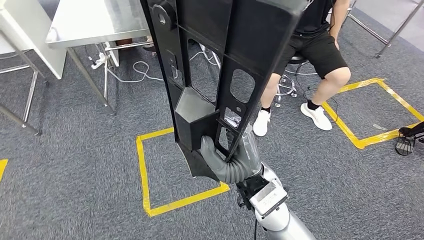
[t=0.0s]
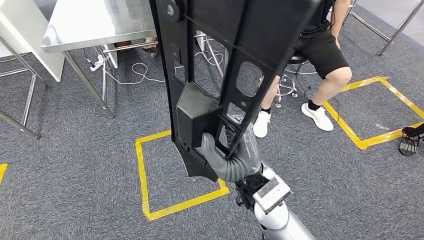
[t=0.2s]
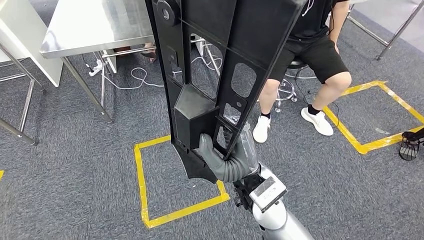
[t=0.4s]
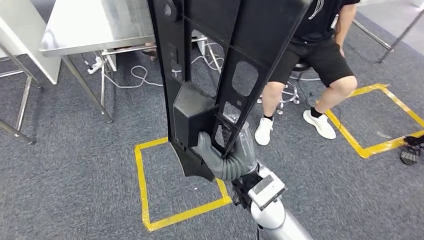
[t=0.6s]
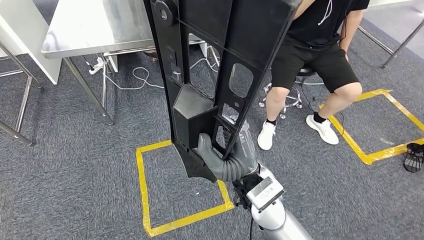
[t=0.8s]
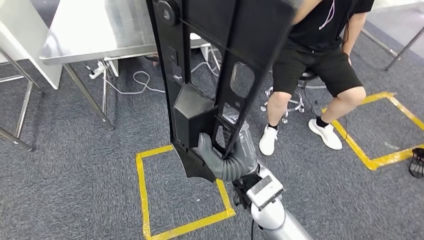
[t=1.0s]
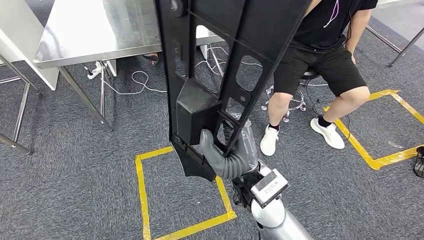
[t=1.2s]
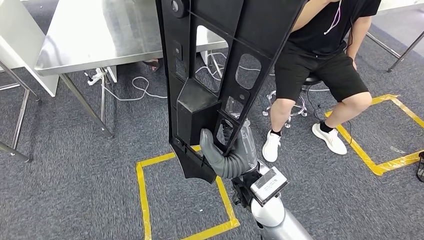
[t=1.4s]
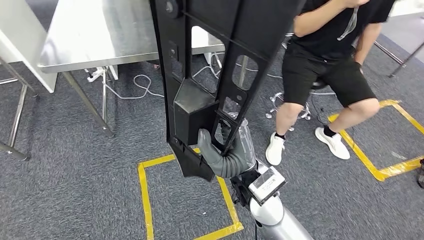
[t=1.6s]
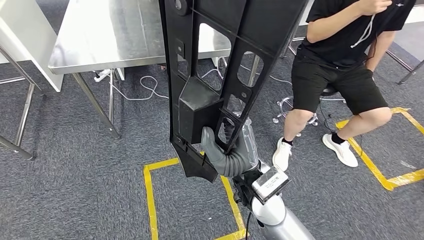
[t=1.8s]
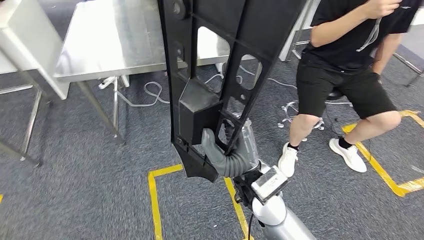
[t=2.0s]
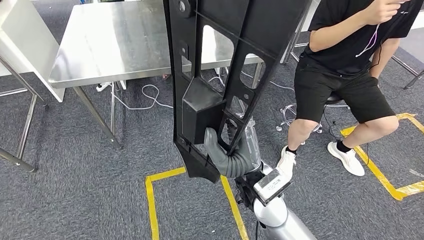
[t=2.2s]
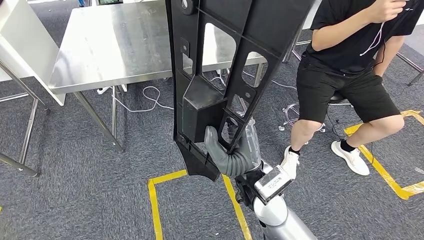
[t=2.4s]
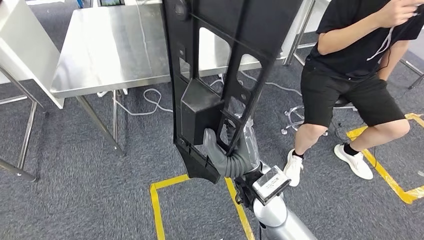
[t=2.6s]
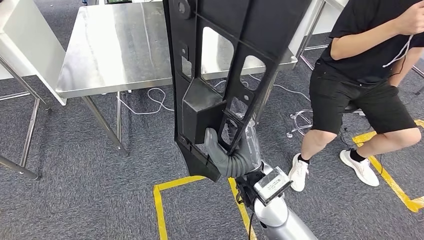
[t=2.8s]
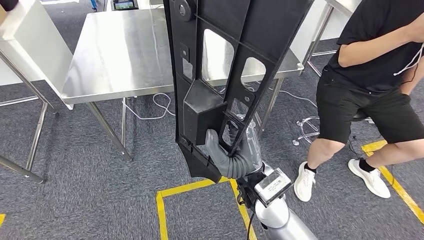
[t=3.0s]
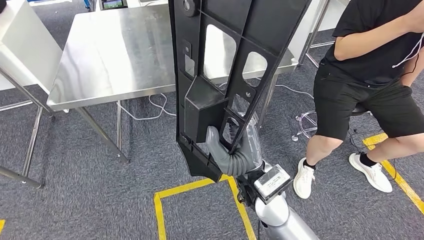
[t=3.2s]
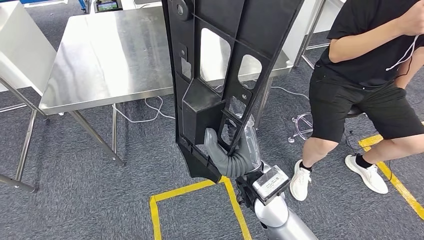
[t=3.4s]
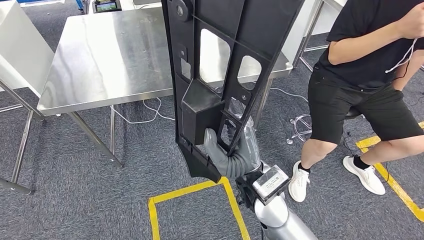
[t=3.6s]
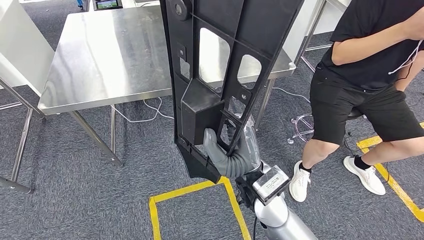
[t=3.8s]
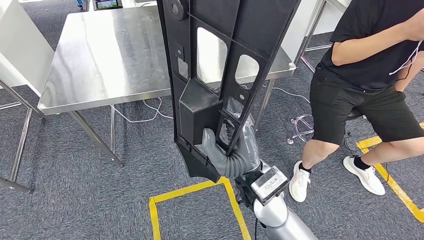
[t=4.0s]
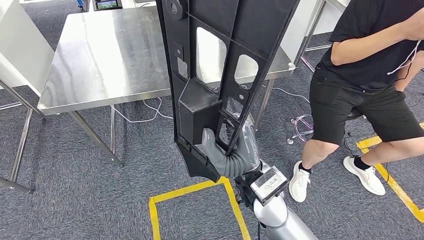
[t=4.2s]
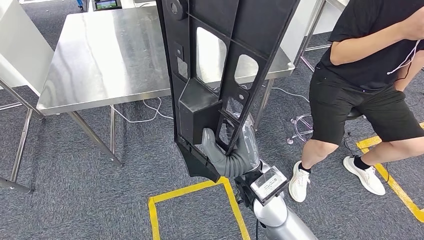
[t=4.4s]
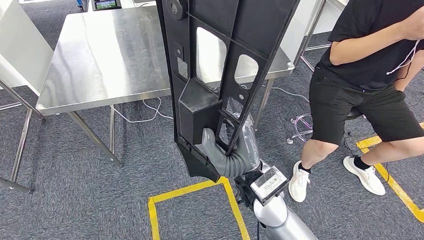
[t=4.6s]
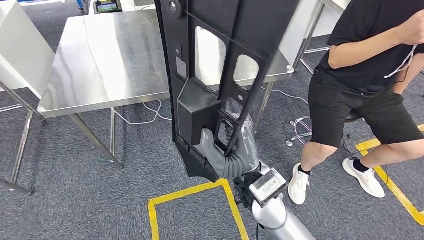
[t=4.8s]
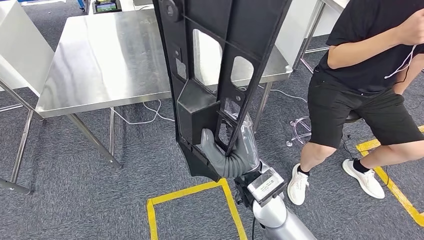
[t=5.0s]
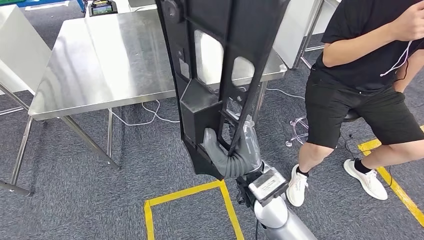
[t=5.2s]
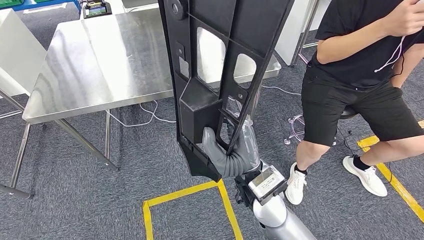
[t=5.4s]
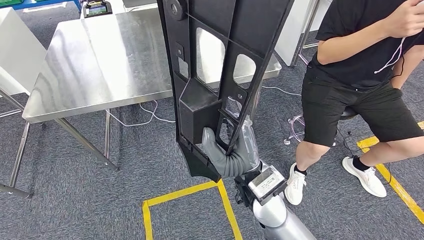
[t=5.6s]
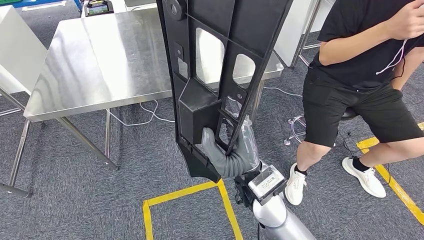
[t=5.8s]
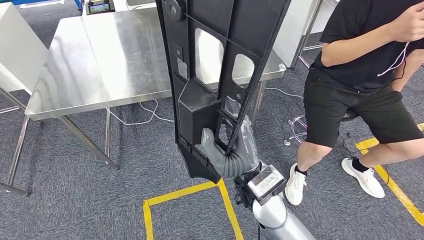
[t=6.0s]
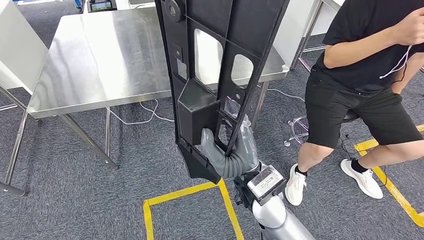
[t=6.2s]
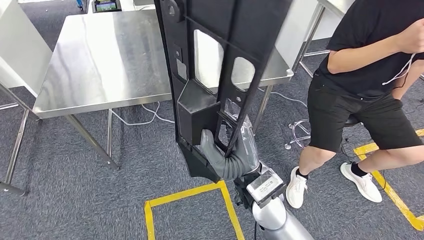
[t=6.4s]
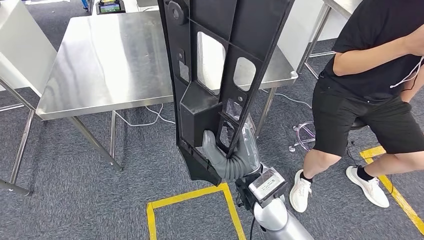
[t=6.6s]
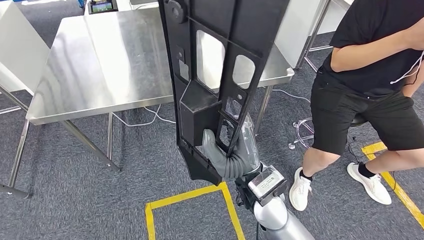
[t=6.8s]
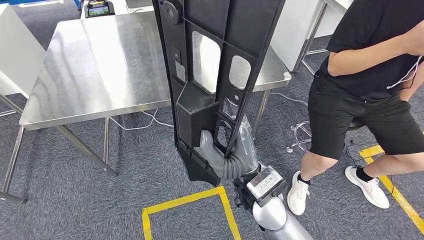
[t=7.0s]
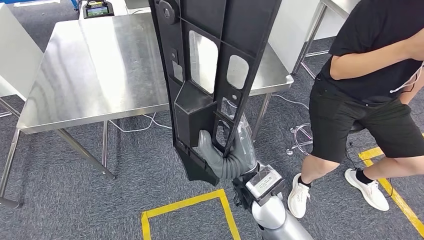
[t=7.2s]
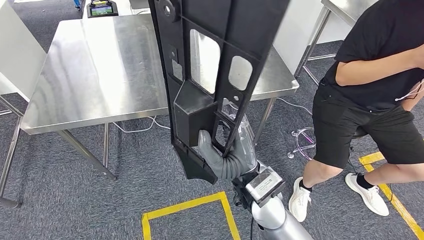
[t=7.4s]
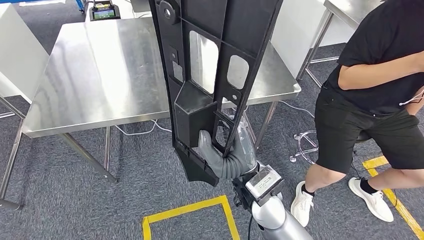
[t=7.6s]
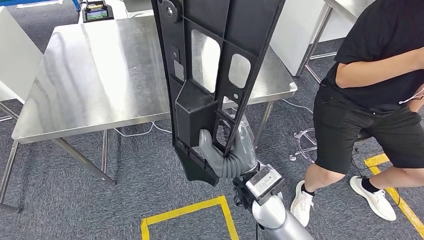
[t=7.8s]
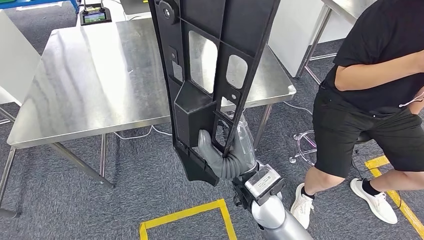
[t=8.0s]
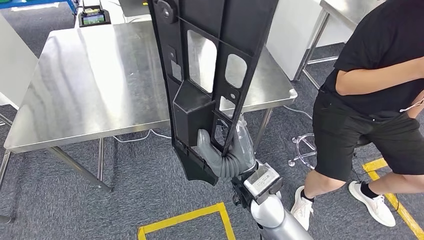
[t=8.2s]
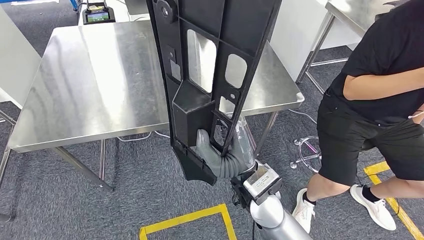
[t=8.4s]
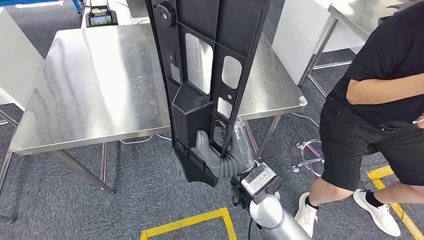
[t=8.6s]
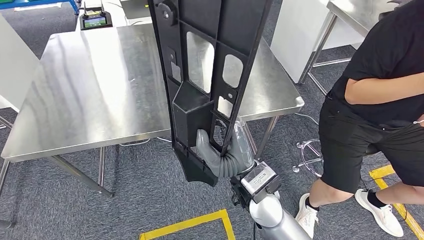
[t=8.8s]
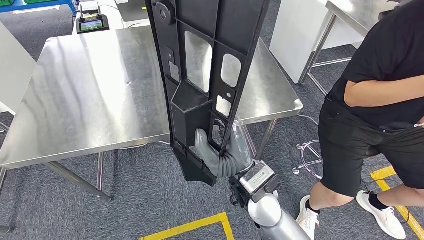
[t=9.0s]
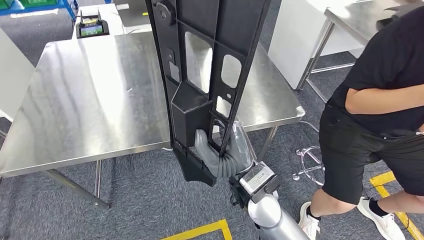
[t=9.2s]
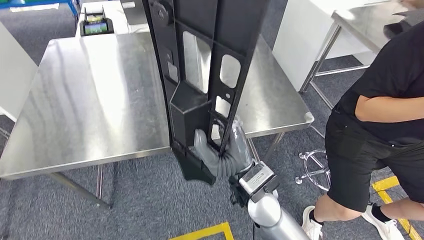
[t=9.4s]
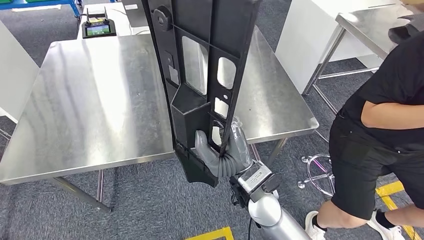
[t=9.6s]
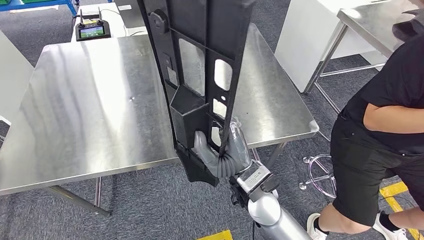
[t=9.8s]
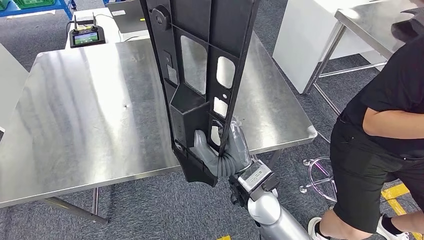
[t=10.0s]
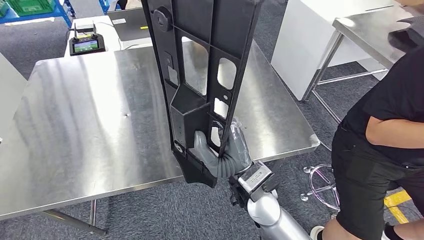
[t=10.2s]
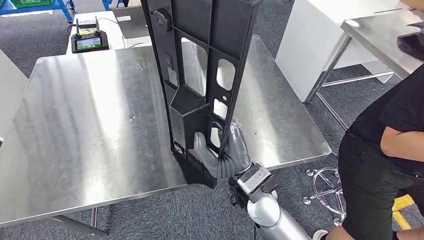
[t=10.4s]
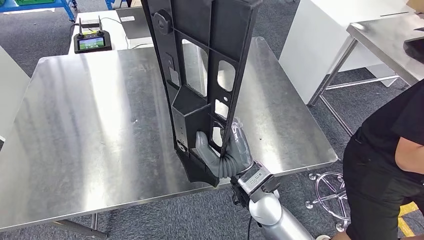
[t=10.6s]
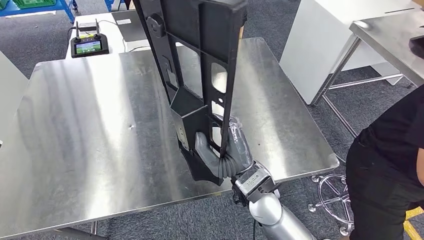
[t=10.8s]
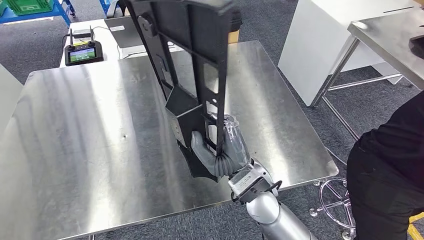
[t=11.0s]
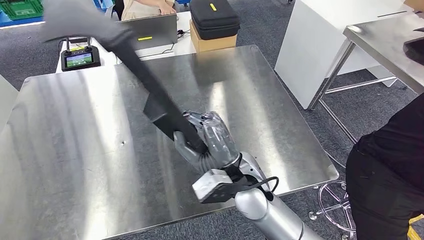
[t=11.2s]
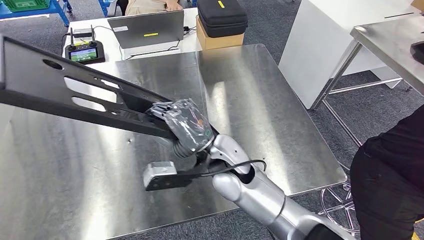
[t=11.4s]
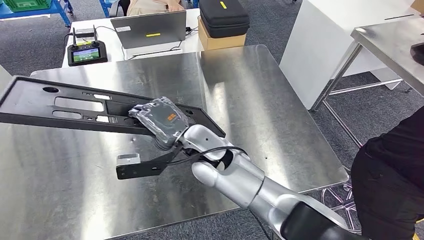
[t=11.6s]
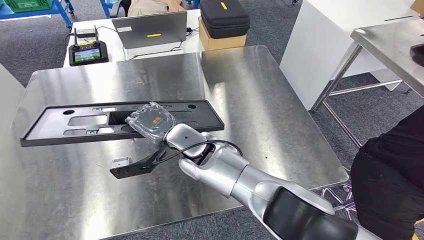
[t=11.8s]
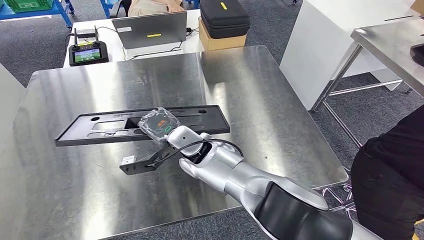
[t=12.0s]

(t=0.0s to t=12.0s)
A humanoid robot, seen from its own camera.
Step, t=0.0s - t=5.6s: Move the large material to the workbench.
t=4.4s - t=6.0s: Neither hand changes place.

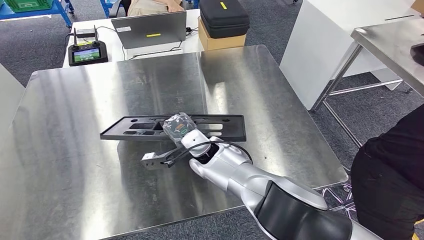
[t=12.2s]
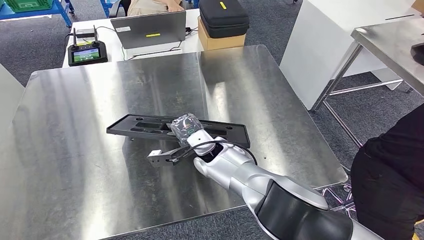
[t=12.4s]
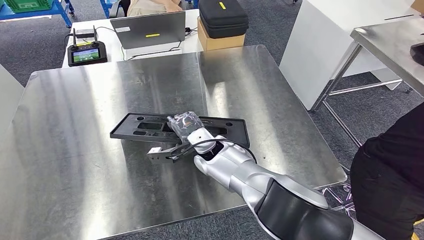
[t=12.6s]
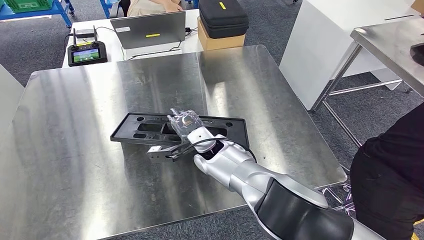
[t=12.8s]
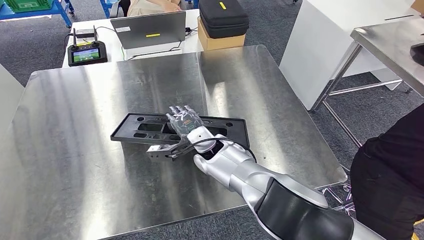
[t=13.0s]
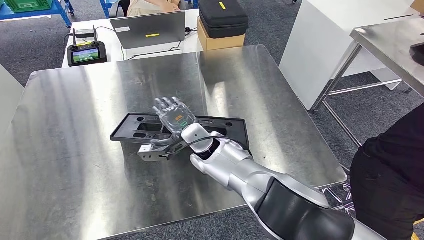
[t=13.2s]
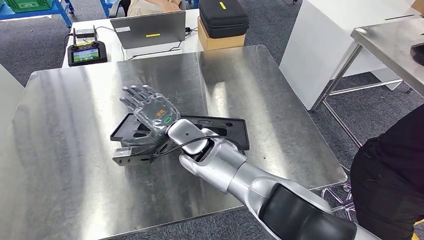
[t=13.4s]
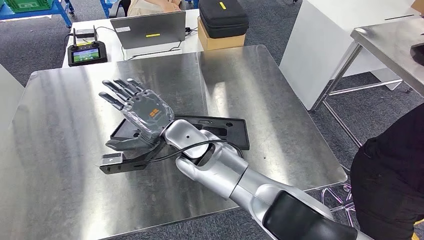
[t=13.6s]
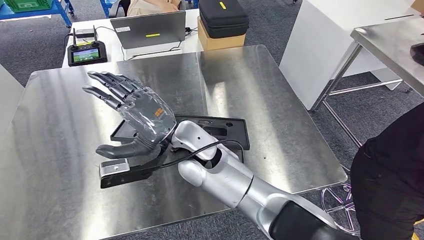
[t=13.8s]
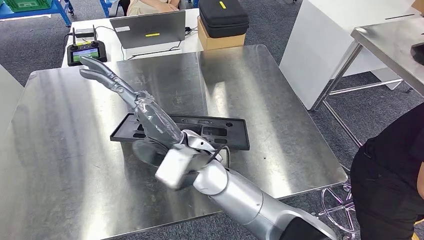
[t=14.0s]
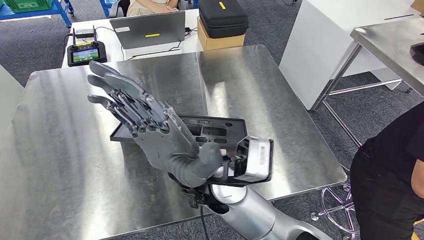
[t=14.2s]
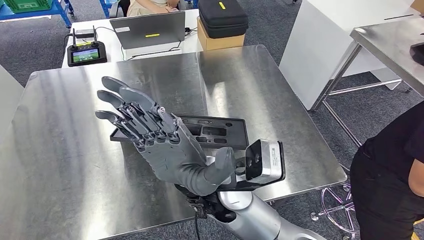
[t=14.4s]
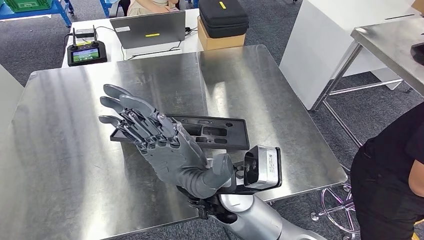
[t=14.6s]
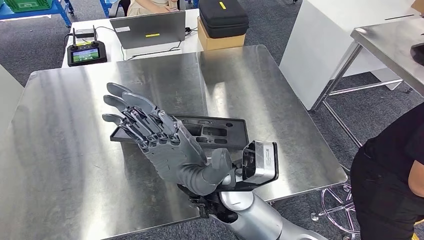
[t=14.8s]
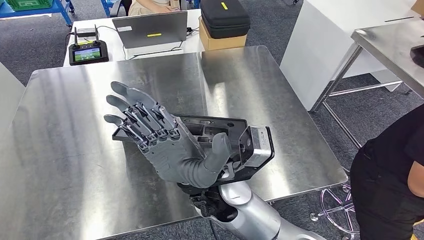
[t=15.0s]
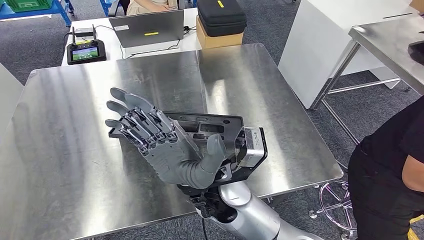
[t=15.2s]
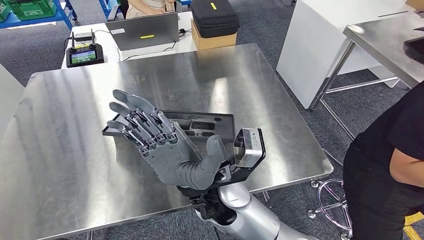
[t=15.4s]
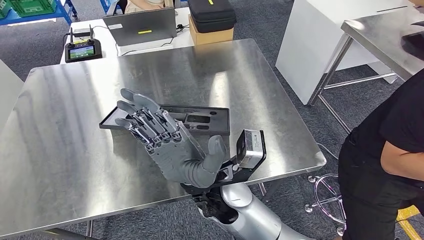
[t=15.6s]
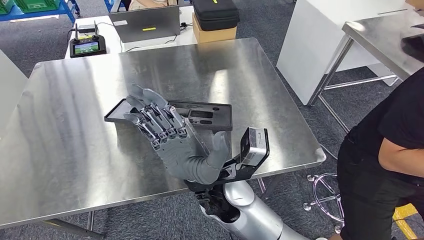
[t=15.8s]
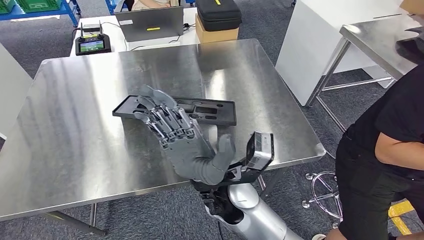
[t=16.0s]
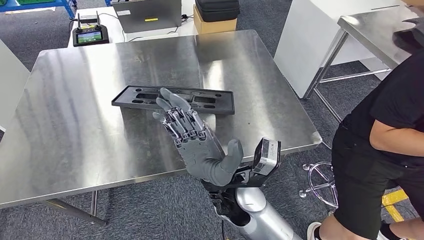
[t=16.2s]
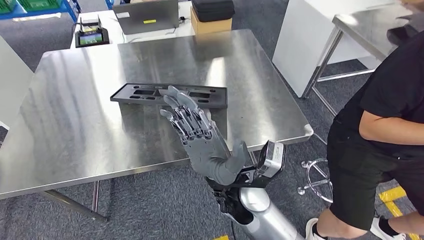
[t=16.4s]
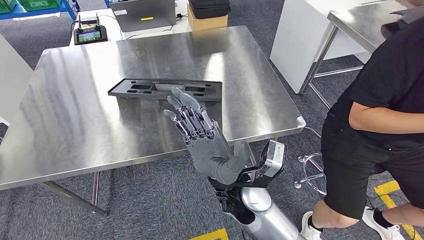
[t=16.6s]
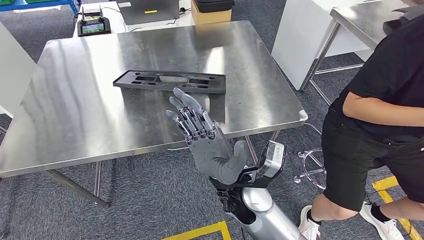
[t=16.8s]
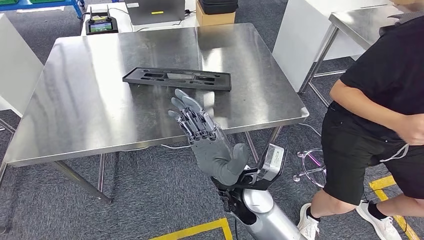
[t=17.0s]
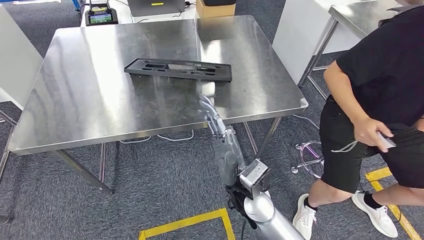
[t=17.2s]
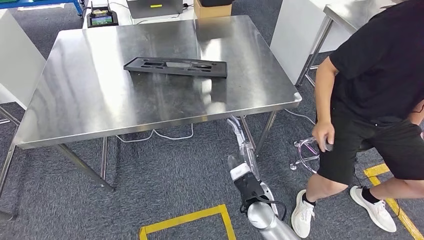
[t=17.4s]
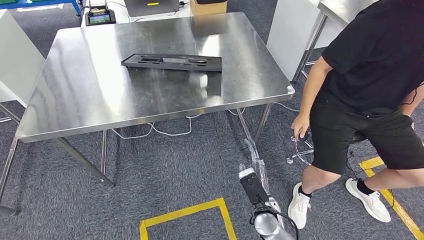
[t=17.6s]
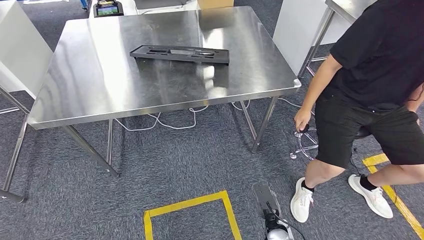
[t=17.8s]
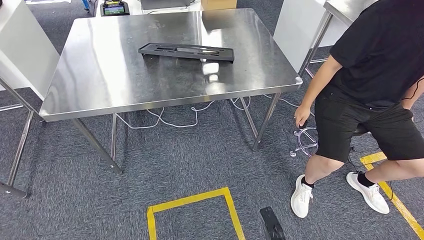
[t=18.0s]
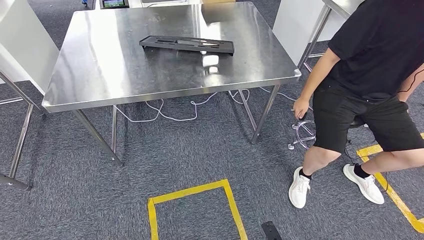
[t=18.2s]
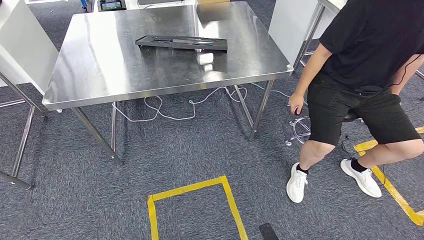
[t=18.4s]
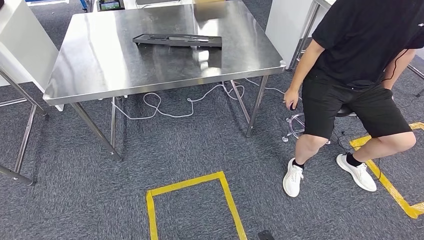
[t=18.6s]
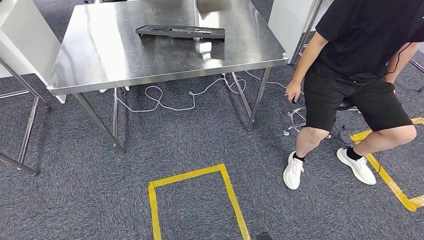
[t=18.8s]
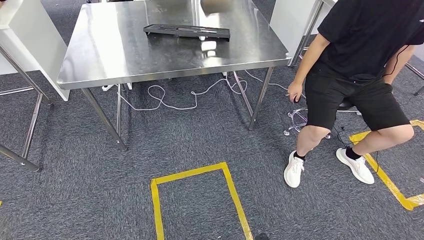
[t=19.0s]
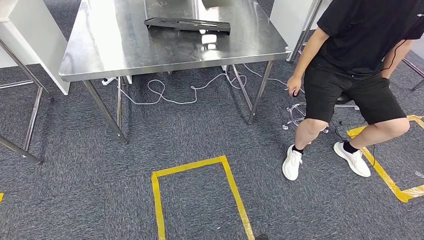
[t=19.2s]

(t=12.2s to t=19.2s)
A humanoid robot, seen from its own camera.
Step, t=12.2s - t=18.0s: Insert the large material into the corresponding slot on the workbench.
t=12.2s - t=13.6s: The right hand travels upward by about 10 cm.
t=13.6s - t=15.0s: The right hand travels backward by roughly 10 cm.
